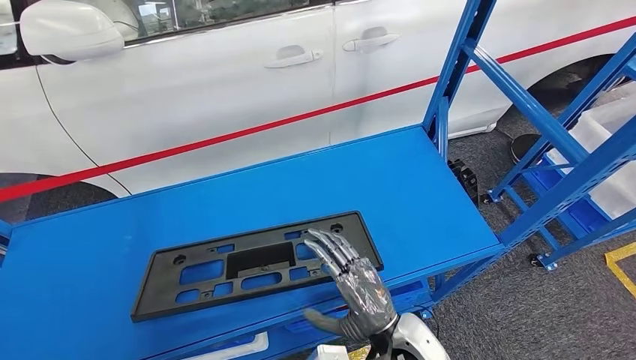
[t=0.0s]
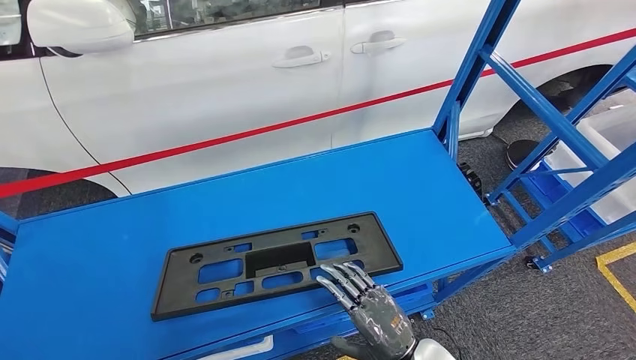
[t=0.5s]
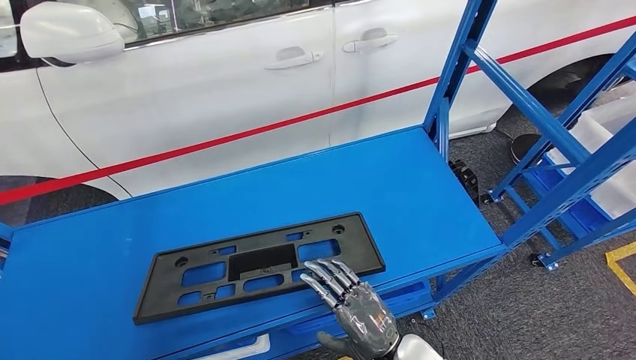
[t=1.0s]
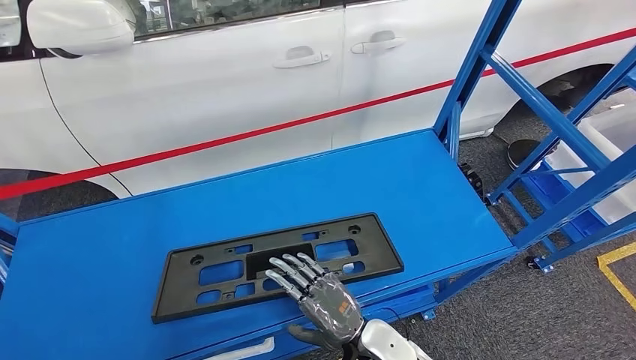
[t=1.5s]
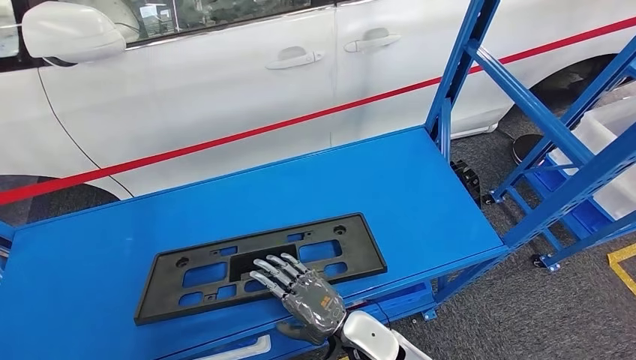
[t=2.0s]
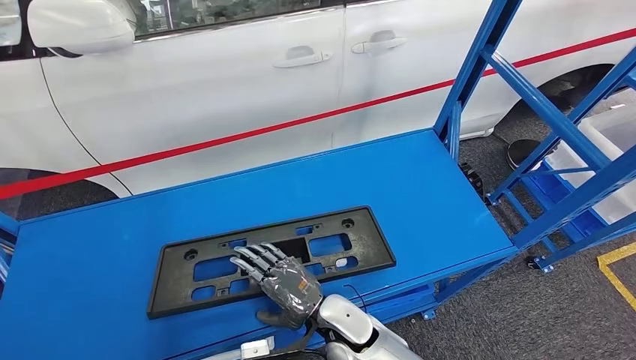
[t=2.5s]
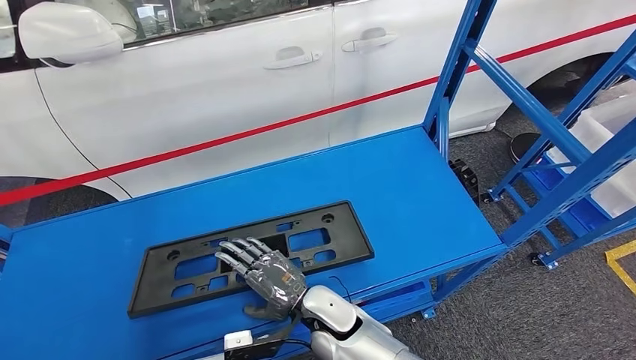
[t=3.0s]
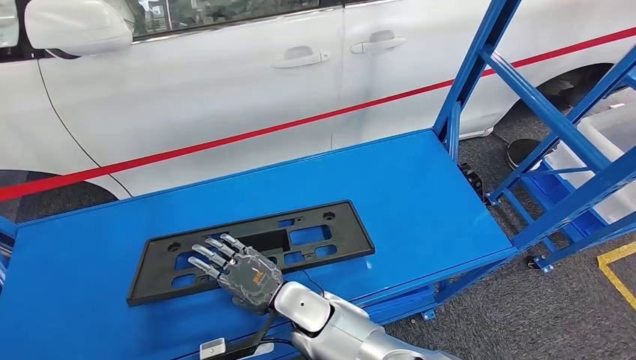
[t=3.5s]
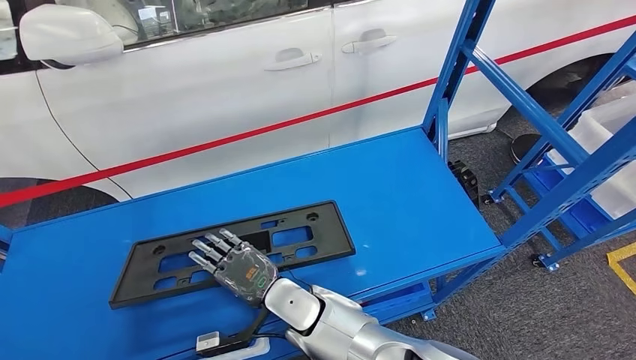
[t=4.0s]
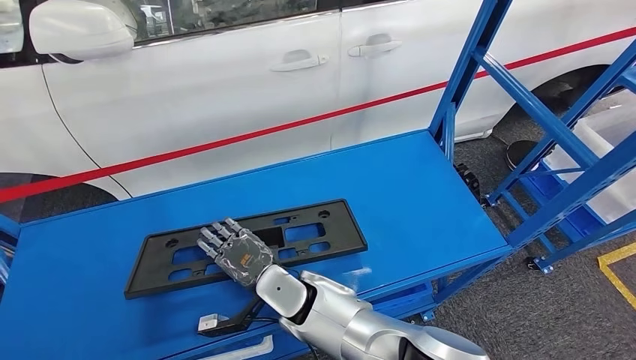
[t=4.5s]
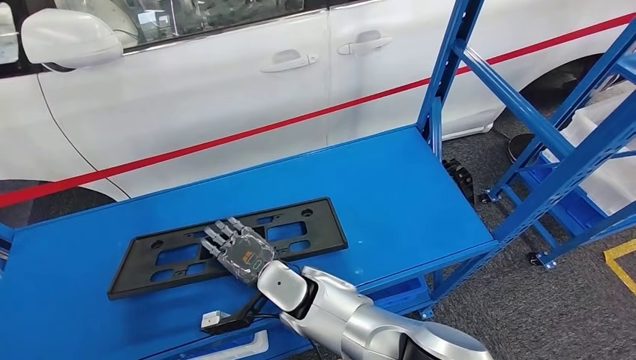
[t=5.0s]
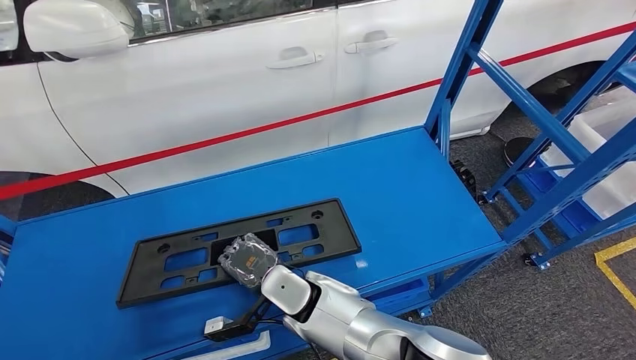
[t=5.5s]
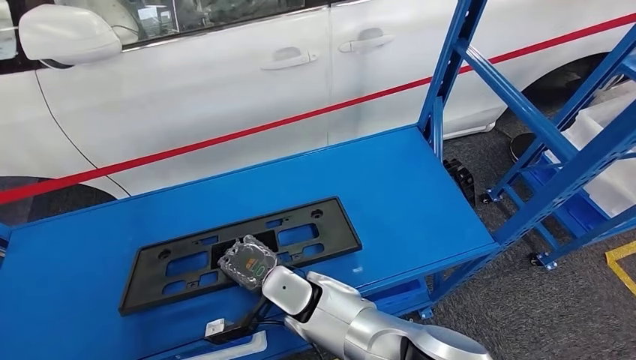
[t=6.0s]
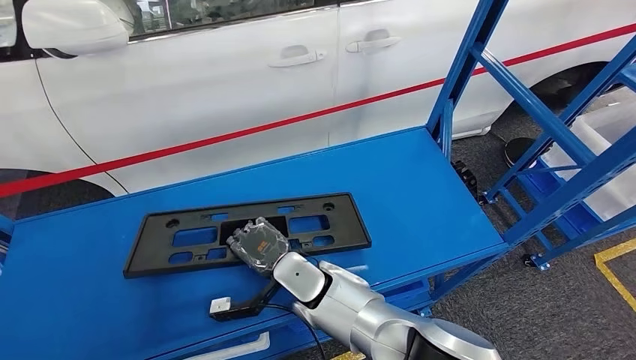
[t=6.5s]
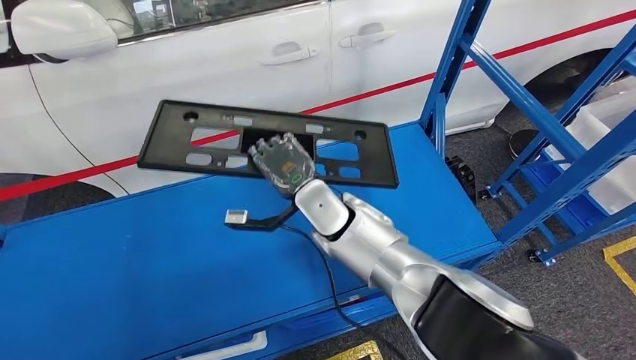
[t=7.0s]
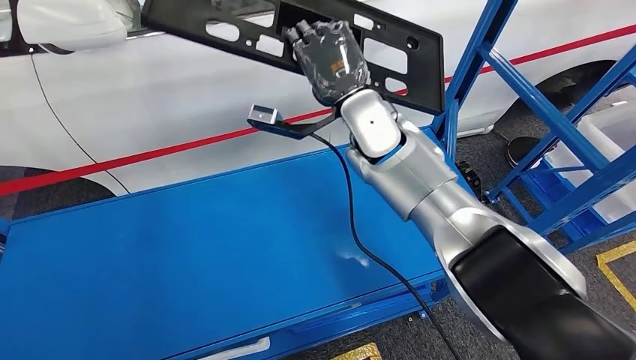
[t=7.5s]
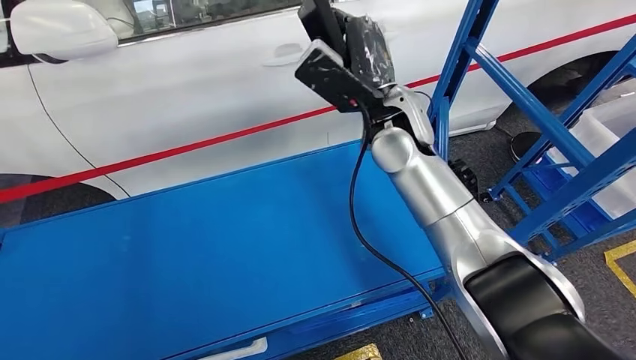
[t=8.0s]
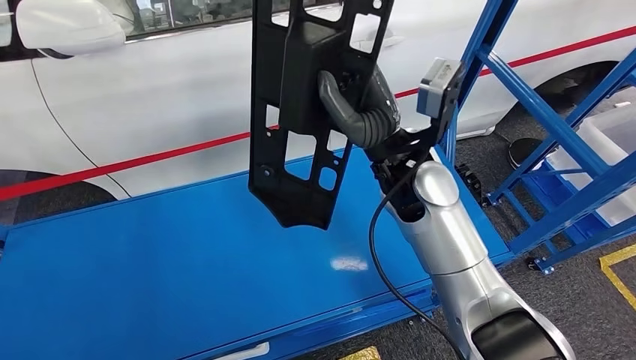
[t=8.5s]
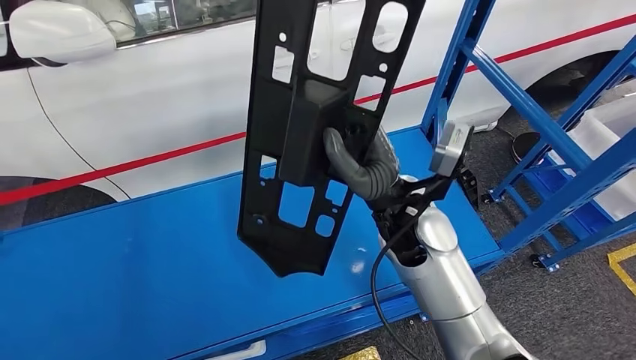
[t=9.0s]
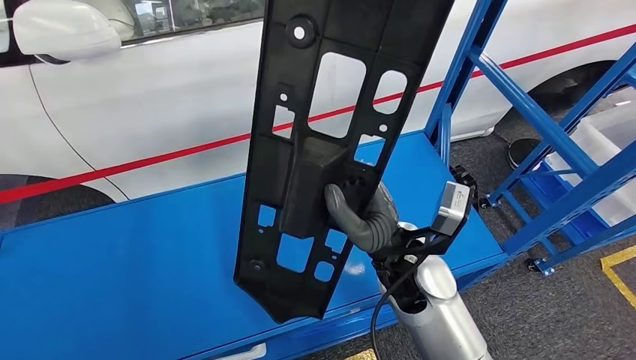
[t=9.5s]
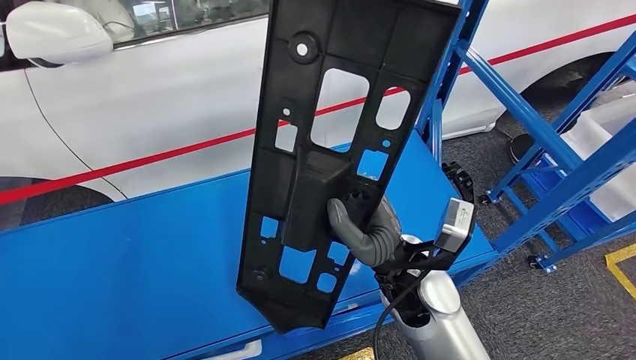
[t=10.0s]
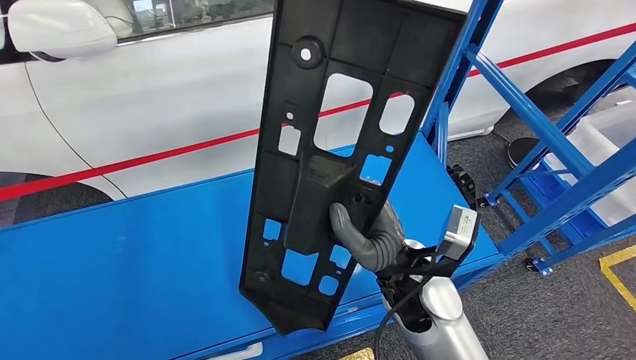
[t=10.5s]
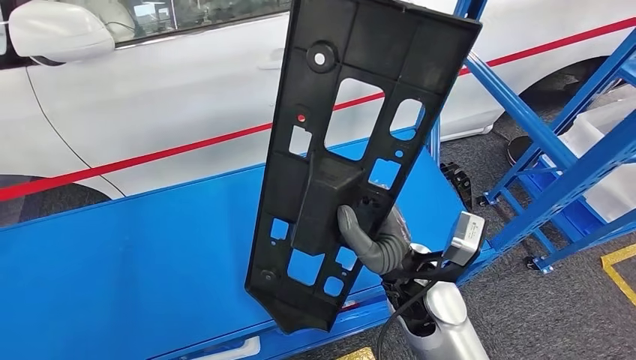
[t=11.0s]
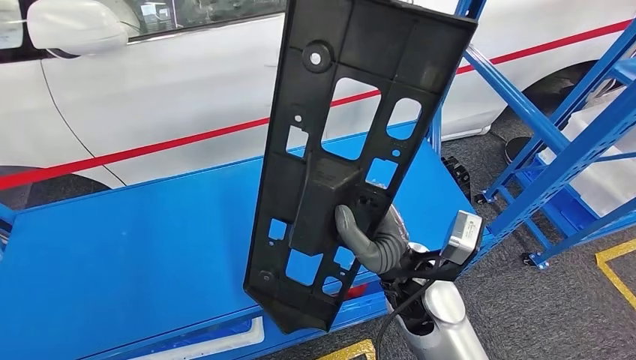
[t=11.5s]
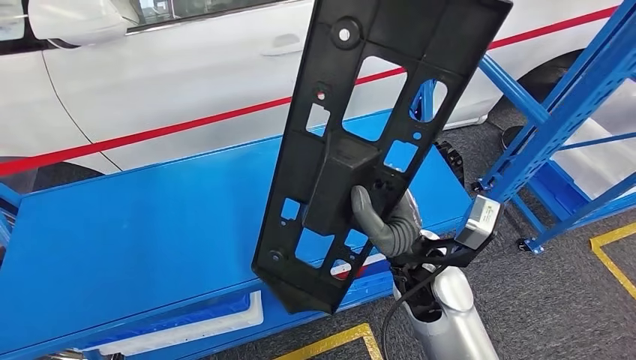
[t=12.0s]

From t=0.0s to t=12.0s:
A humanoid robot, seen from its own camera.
Step, from t=0.0s to t=10.5s: Pick up the large material from the shelf.
From t=0.0s to t=2.0s: The right hand moves to the left, some 5 cm.
From t=2.0s to t=4.0s: The right hand shifts roughly 10 cm to the left and forward.
From t=4.0s to t=6.0s: There are only small adjustments of the hands.

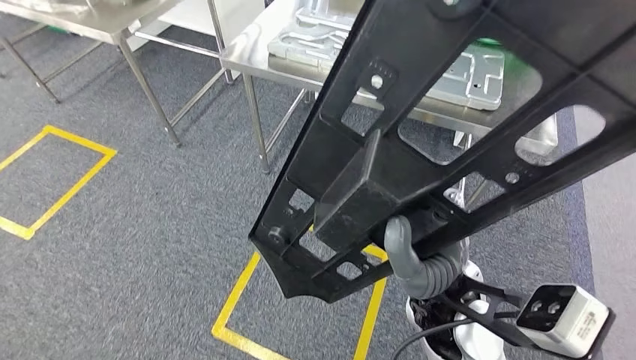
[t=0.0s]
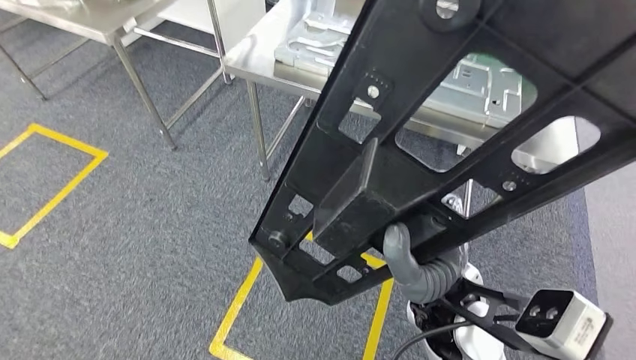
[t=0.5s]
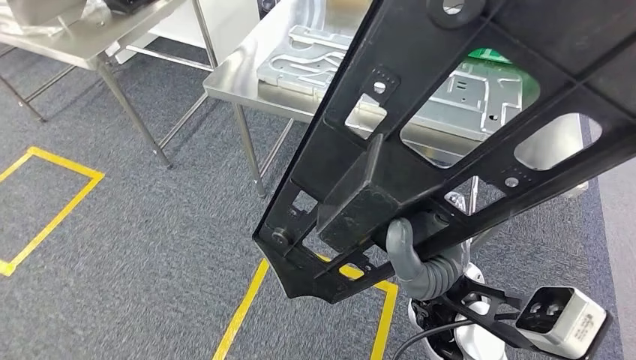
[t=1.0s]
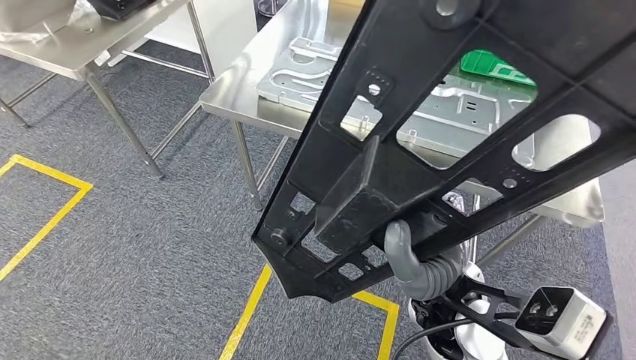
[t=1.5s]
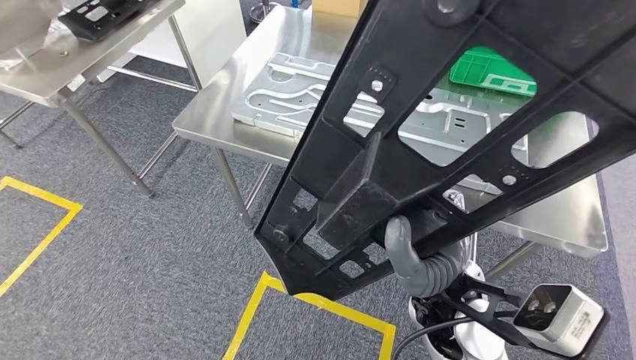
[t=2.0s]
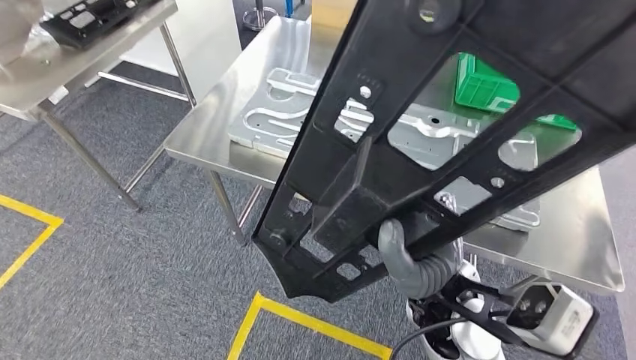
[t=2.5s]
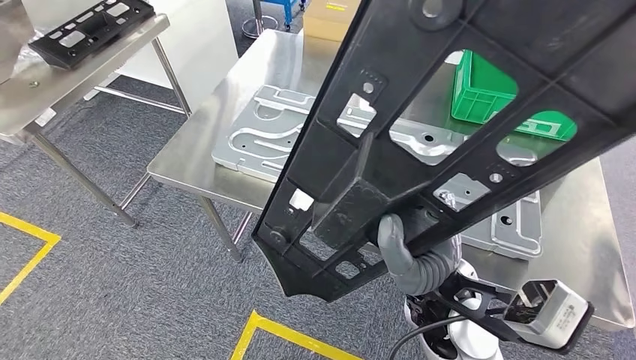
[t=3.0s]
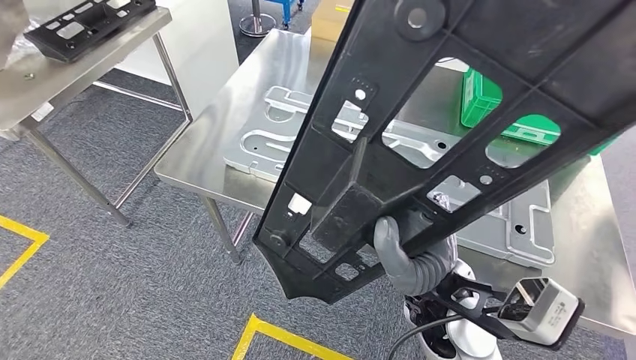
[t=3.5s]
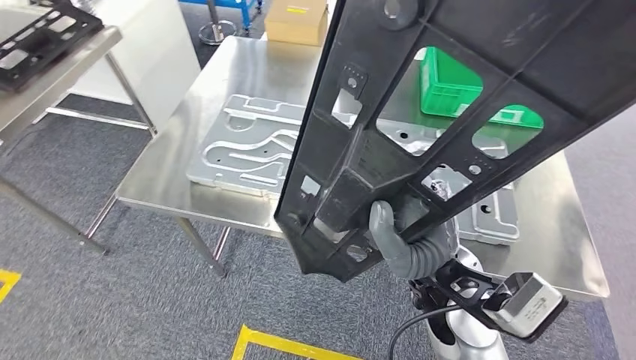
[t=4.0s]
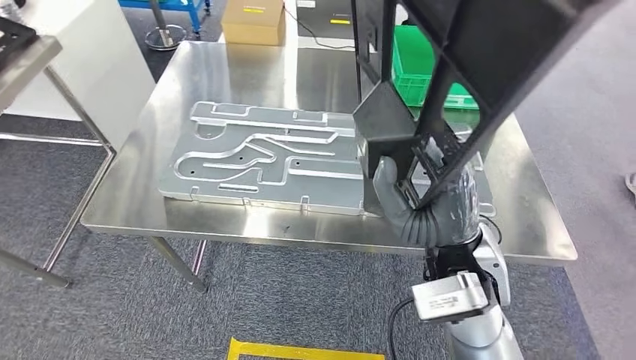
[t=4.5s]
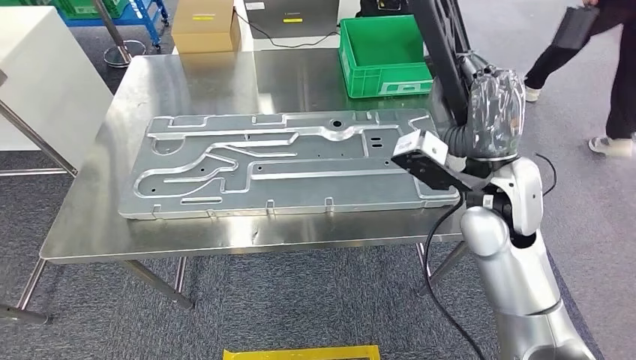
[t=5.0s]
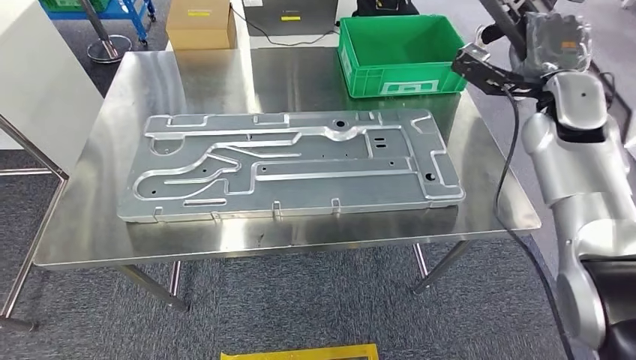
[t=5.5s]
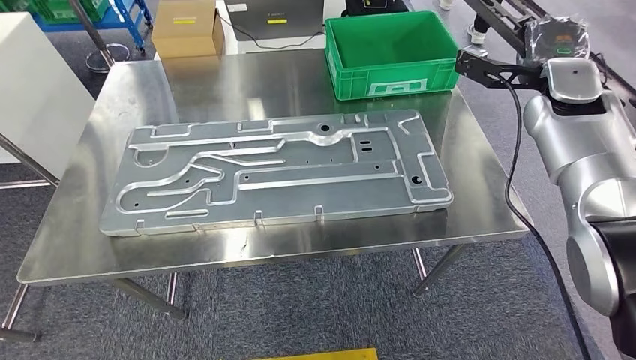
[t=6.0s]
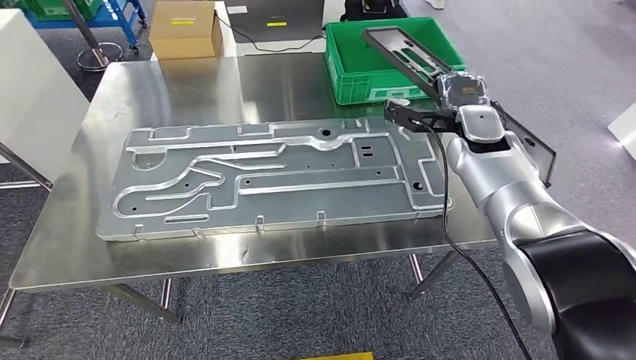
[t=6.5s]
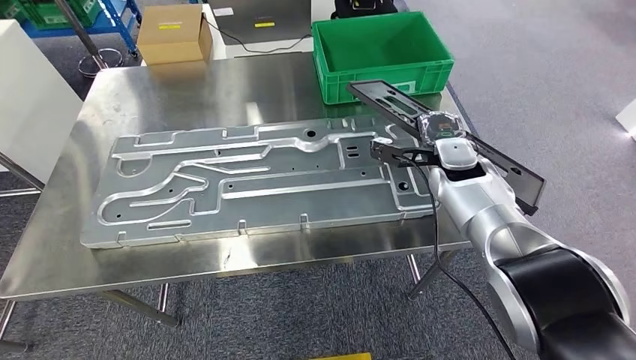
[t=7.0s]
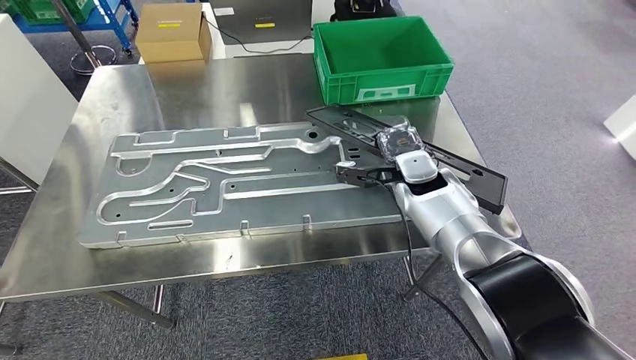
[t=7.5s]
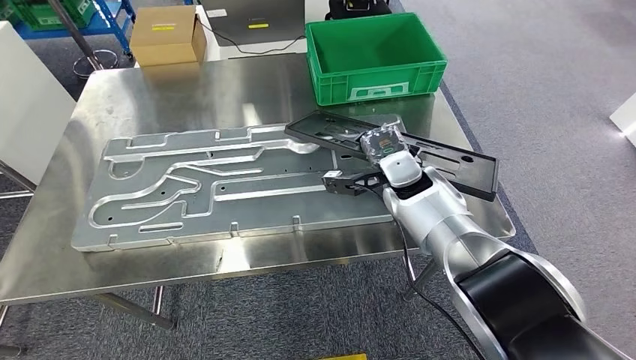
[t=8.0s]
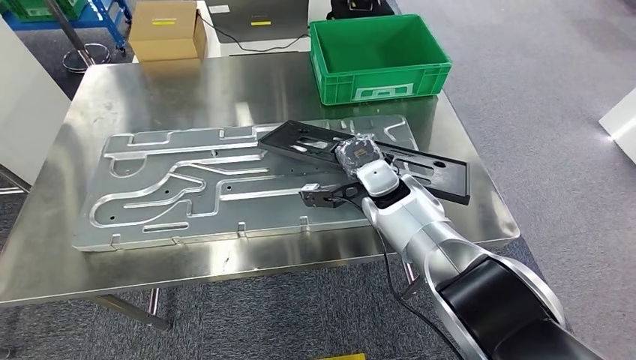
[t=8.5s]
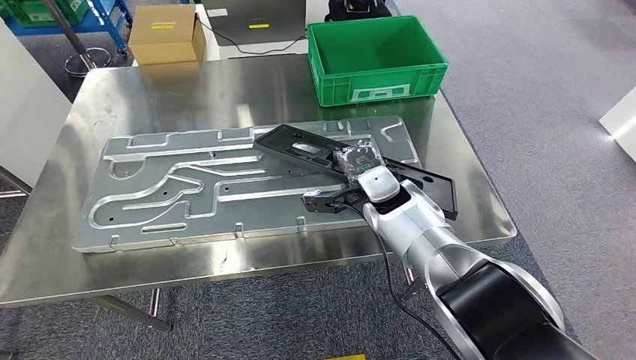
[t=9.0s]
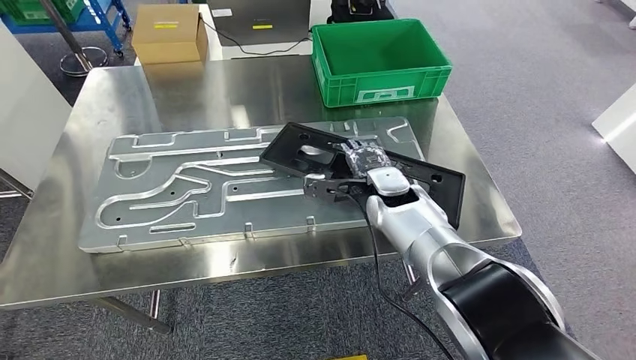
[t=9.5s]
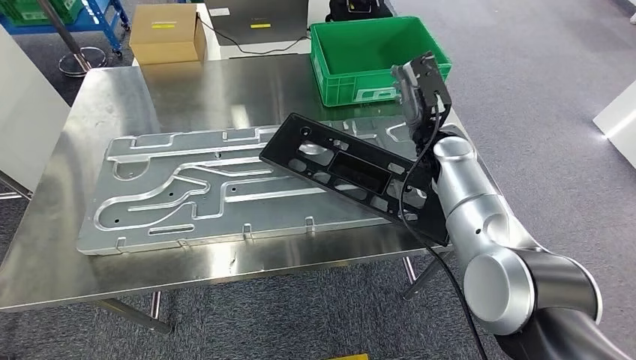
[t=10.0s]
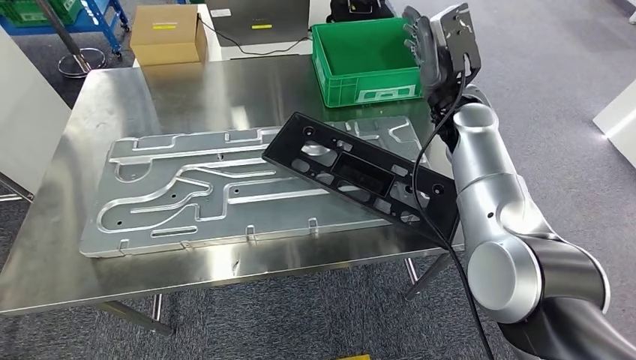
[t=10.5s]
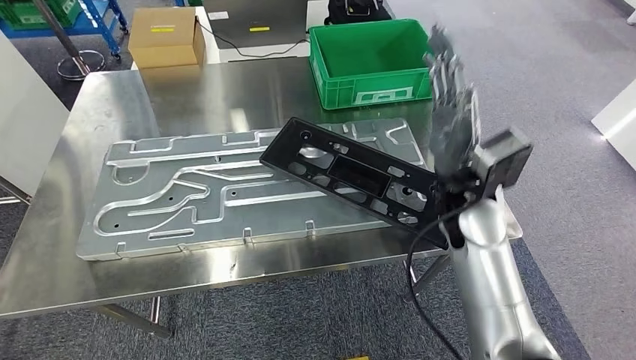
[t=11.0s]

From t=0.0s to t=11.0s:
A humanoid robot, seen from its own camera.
Step, from t=0.0s to t=4.0s: Move the large material to the workbench.
